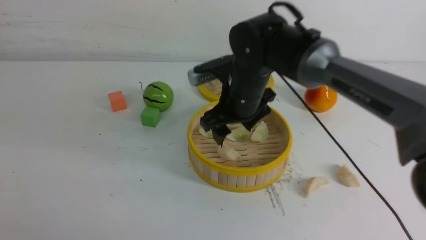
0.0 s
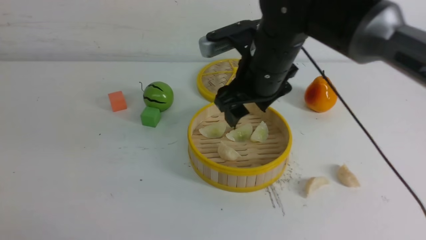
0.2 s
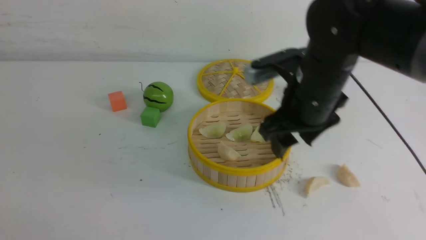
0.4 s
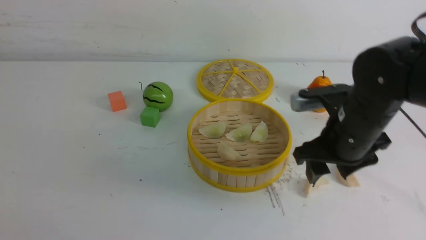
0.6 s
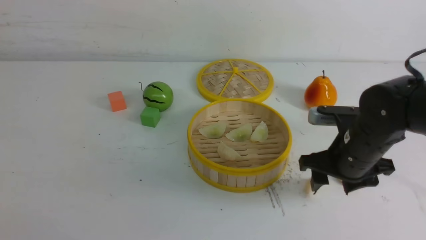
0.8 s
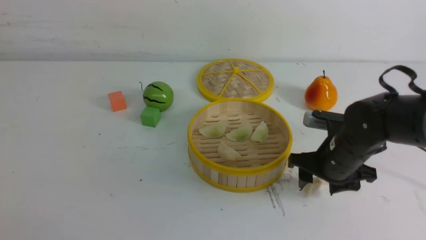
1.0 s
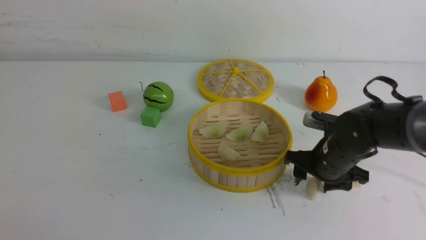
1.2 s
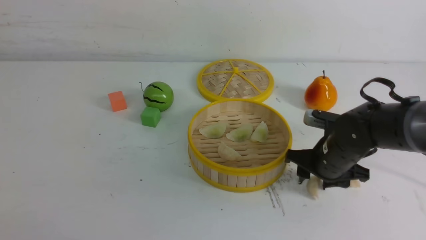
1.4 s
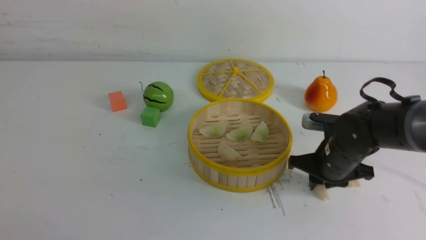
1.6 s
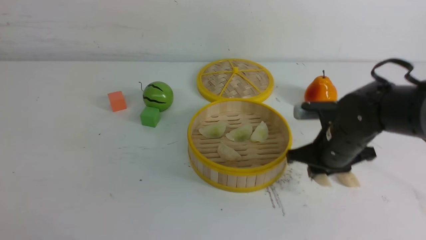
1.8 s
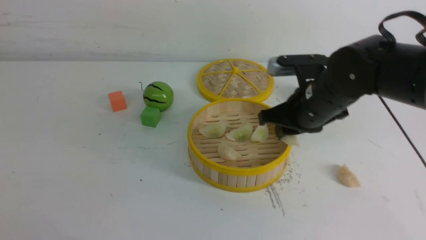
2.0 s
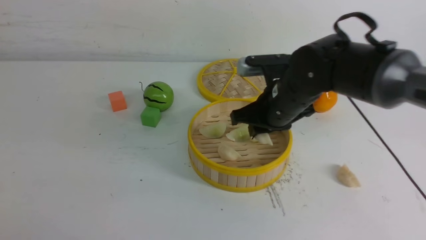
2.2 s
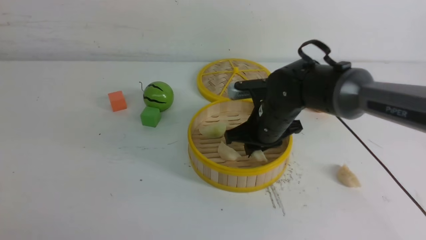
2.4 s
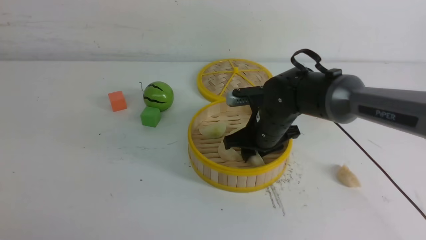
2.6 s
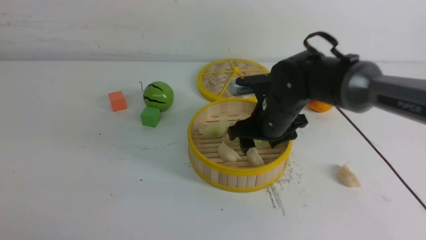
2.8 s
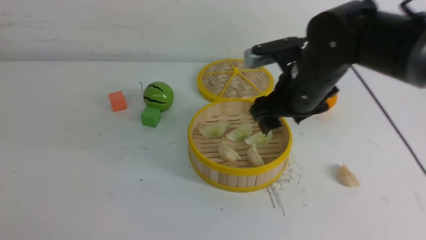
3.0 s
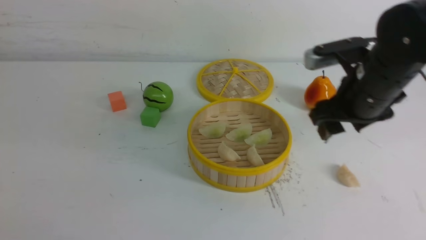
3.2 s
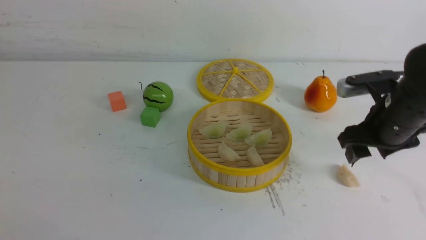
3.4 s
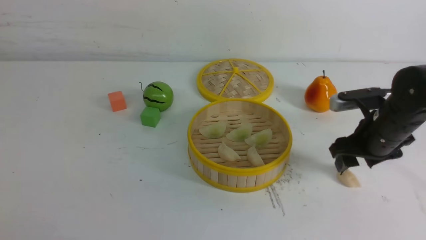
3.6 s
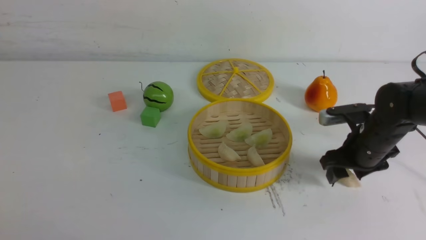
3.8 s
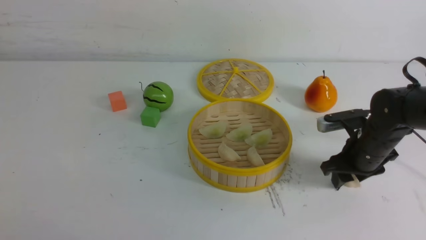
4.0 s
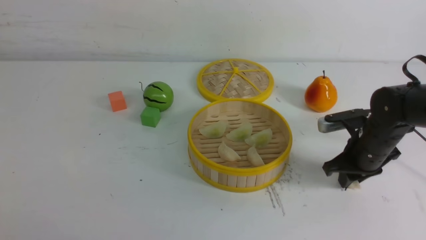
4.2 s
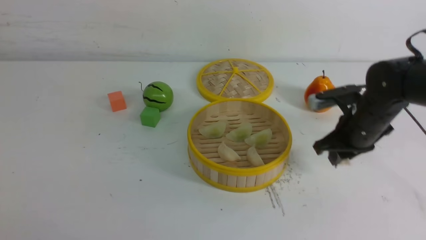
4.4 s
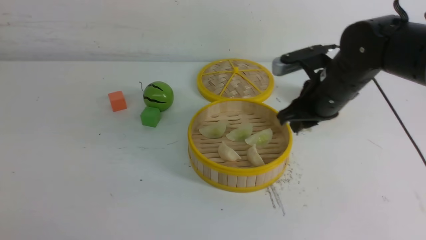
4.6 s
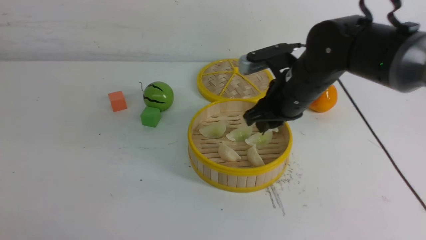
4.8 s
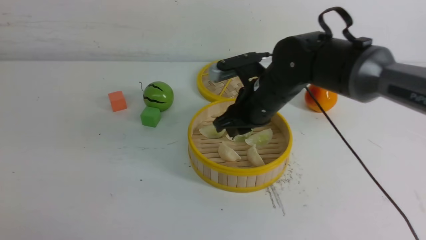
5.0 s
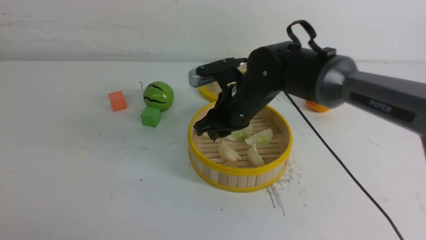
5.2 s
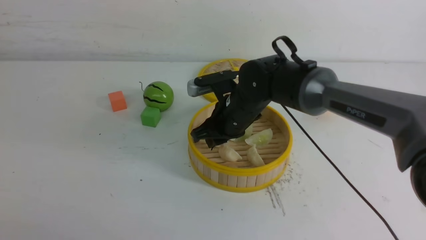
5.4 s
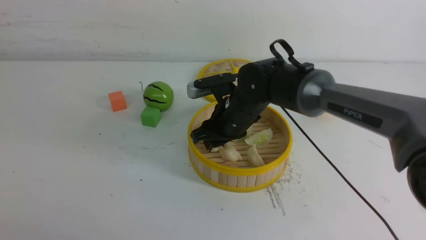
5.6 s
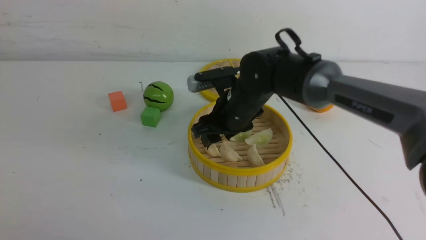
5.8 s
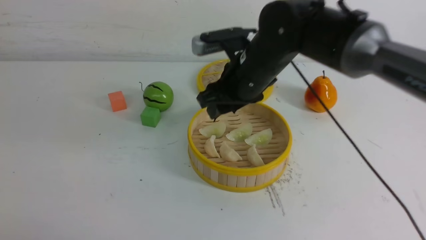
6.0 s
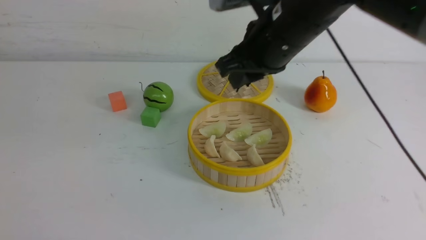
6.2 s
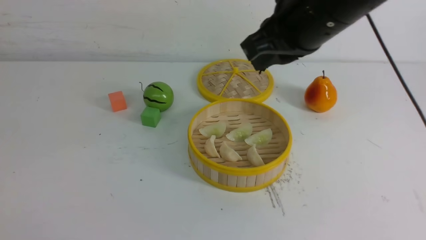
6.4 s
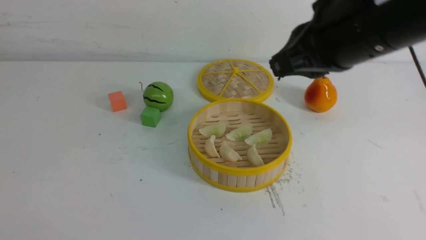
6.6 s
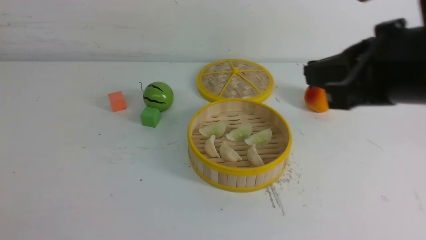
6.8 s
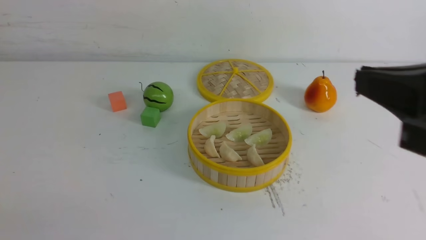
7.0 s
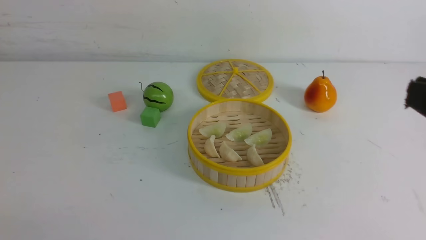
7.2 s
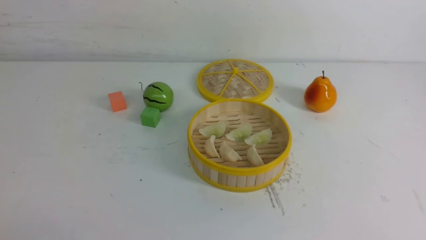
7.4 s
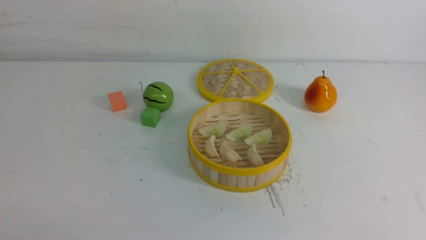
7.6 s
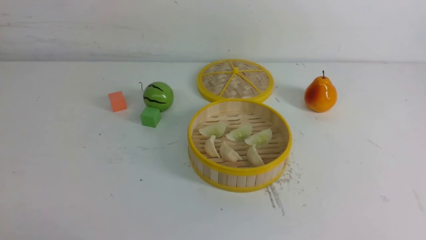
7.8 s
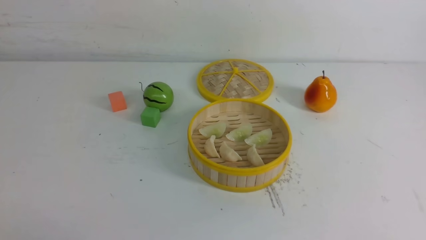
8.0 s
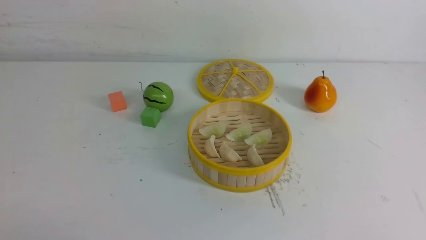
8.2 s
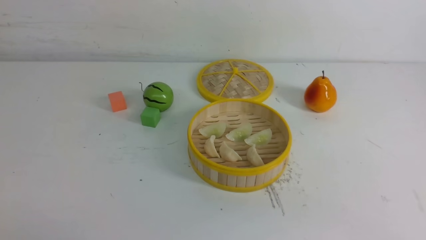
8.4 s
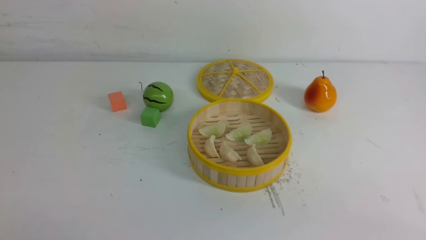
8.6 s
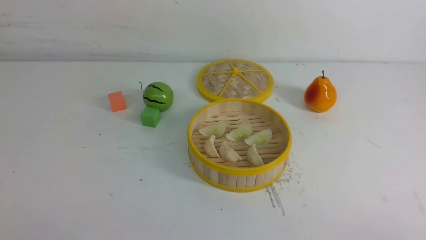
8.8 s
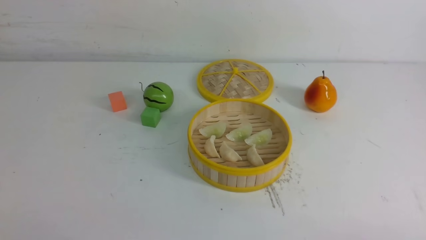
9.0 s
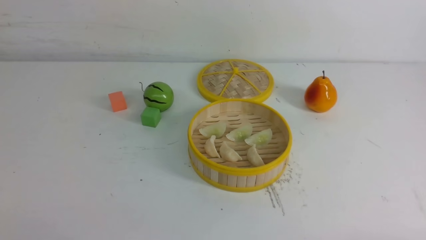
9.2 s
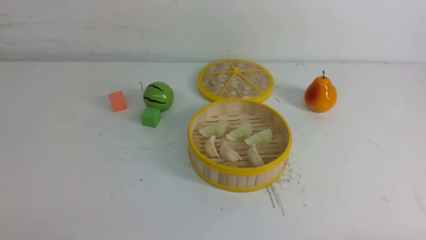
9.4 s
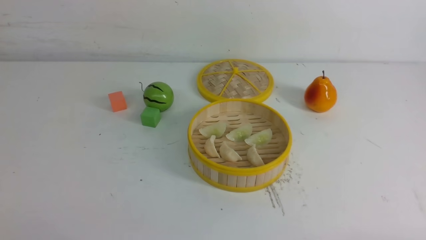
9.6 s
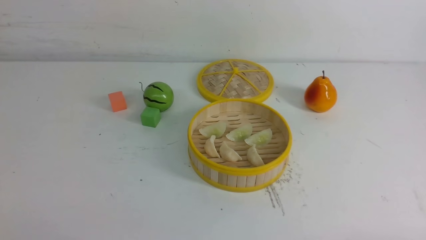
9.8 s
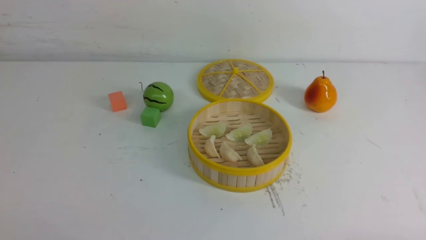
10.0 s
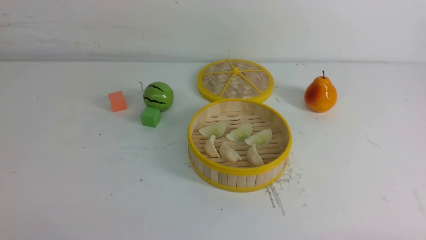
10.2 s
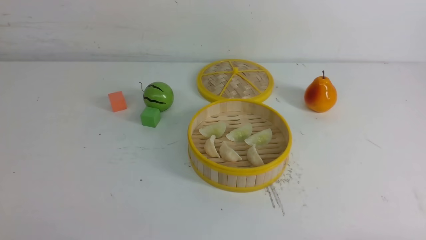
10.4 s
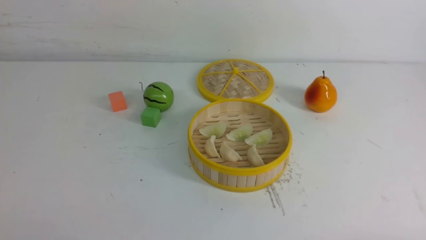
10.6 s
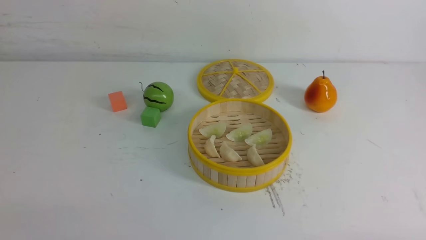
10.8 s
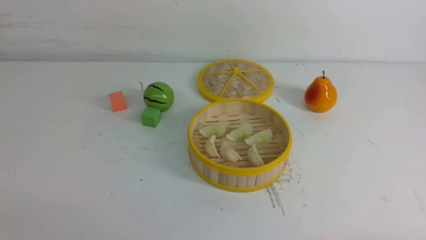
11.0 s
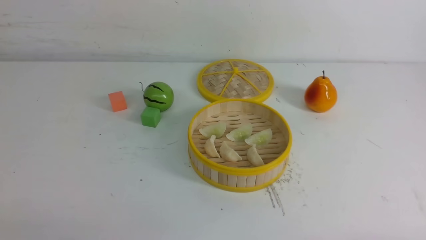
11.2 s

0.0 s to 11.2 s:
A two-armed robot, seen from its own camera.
Task of the whole recording: put the dumplings into the steamer on the white table.
Step, 0.2 to 1.6 s: use the right arm to grab a dumpling.
Step, 1.8 to 2.8 s: use the right arm to put the dumpling into the steamer.
Step, 3.0 to 4.2 s: use the right arm to grab a dumpling.
Step, 4.4 to 5.8 s: use the right arm to put the dumpling into the steamer.
0.0 to 1.6 s: The right gripper is displaced to the right and downward by approximately 20 cm, and closes its fingers.
1.6 to 3.2 s: The right gripper moves up and down over some 10 cm, changing direction 2 times, and opens its fingers.
3.2 to 4.8 s: The right gripper shifts about 10 cm to the left, and closes its fingers.
4.8 to 6.4 s: The left gripper shifts some 10 cm backward and to the left. Meanwhile the right gripper moves upward and backward, some 20 cm, and opens, then closes once more.
6.4 to 8.0 s: The right gripper is displaced backward and to the right by approximately 25 cm; the left gripper moves downward, some 5 cm.

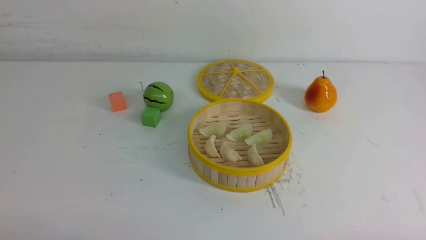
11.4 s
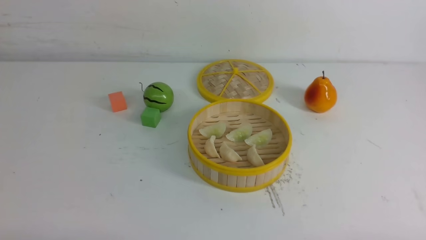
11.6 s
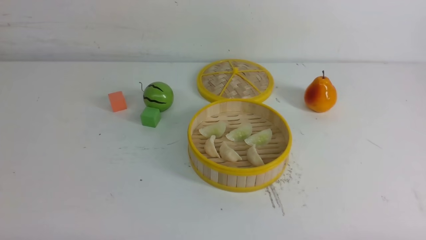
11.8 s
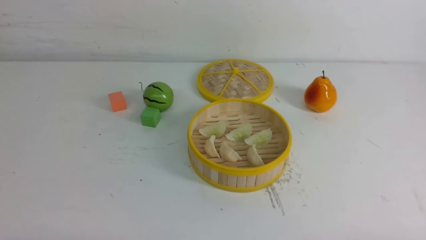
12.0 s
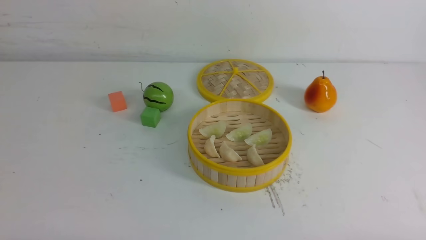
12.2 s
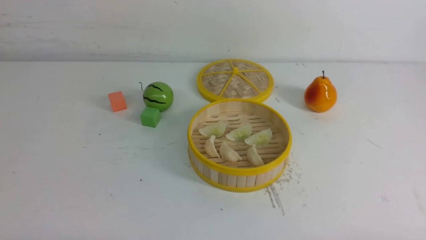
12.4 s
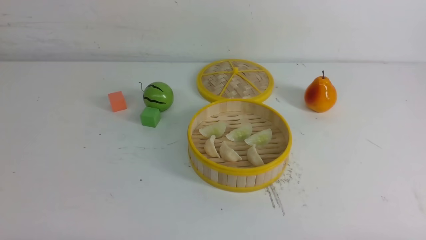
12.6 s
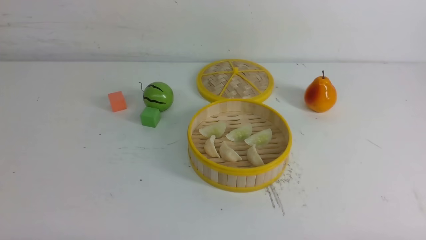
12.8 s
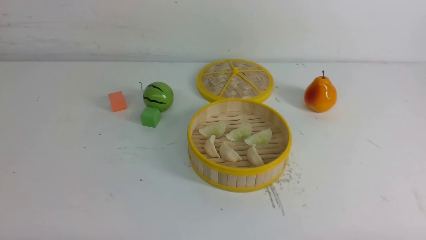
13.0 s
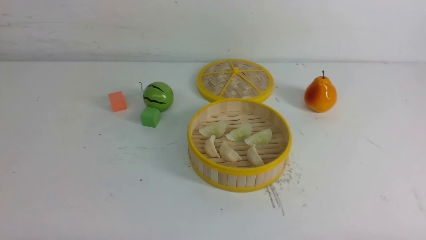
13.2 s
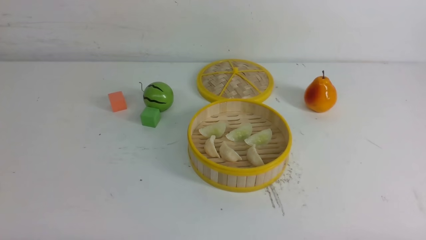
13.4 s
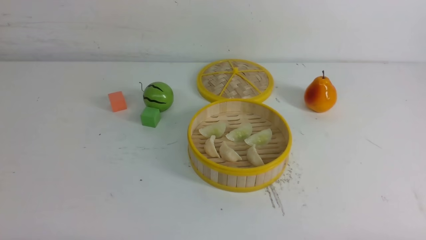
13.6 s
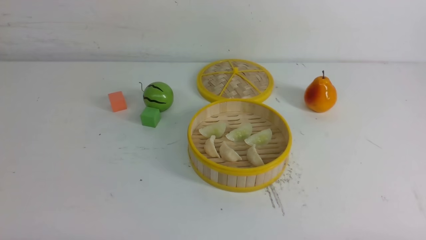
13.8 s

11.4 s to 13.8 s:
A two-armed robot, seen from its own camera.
Task of the whole recording: put the dumplings into the steamer on the white table.
12.6 to 13.8 s: The two grippers keep their place.
